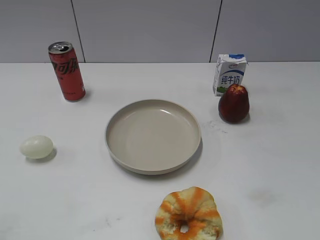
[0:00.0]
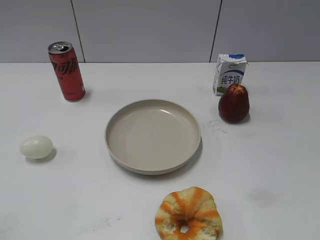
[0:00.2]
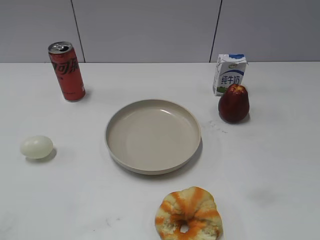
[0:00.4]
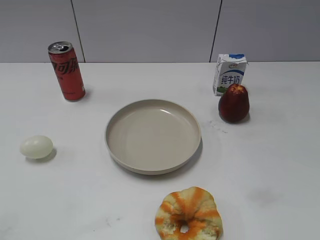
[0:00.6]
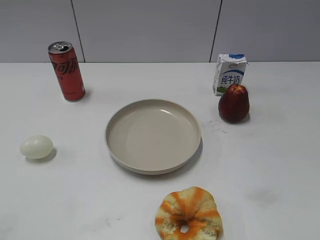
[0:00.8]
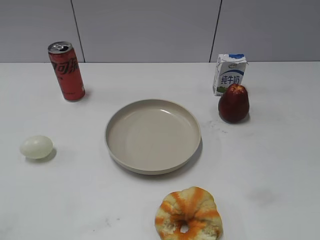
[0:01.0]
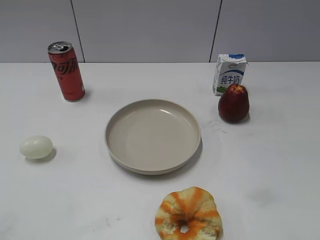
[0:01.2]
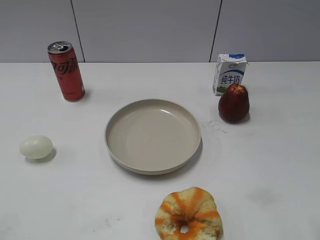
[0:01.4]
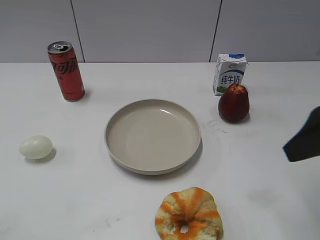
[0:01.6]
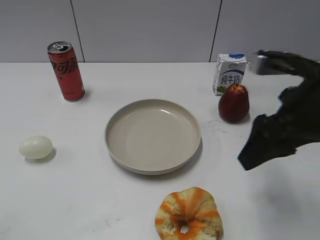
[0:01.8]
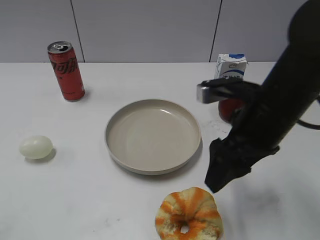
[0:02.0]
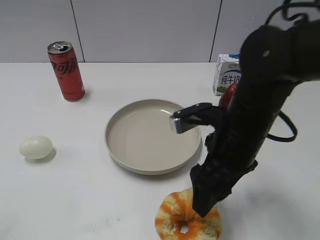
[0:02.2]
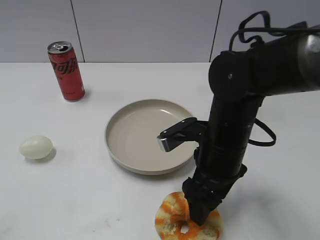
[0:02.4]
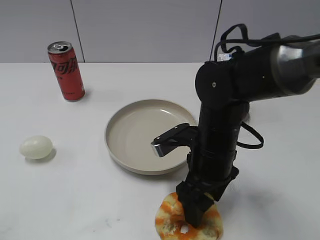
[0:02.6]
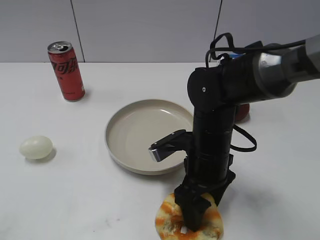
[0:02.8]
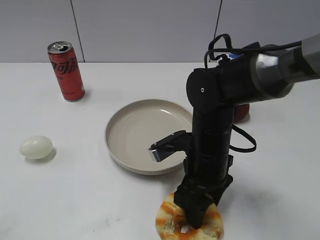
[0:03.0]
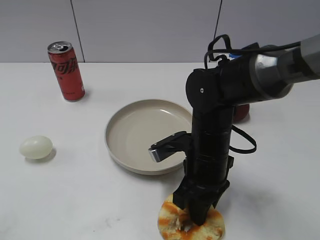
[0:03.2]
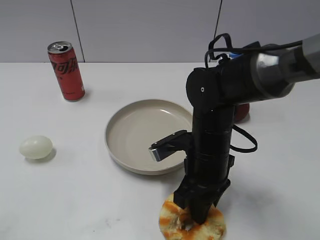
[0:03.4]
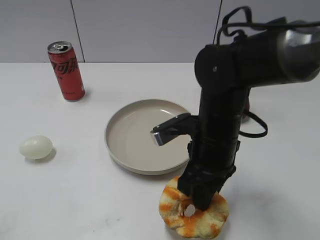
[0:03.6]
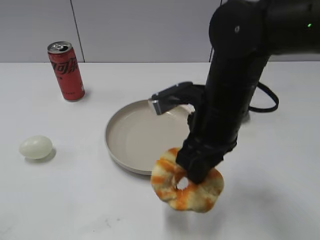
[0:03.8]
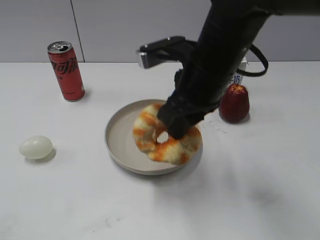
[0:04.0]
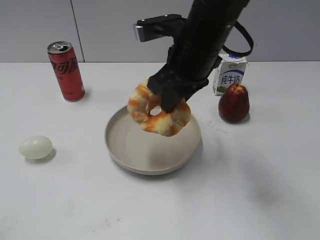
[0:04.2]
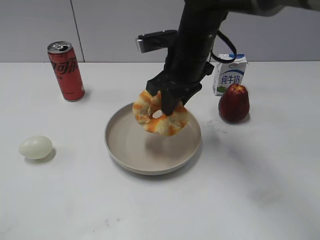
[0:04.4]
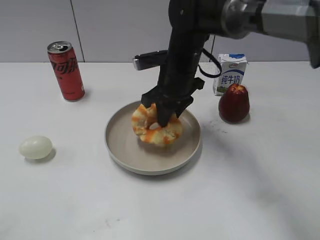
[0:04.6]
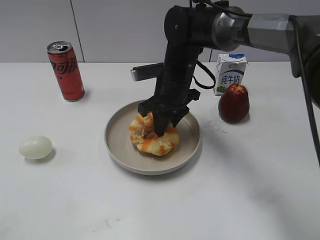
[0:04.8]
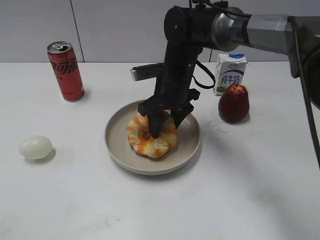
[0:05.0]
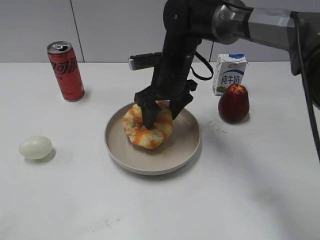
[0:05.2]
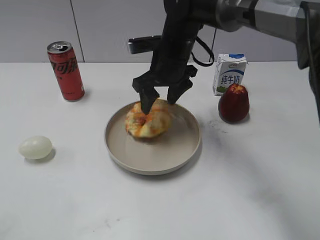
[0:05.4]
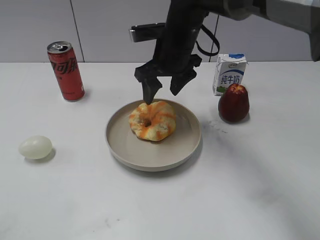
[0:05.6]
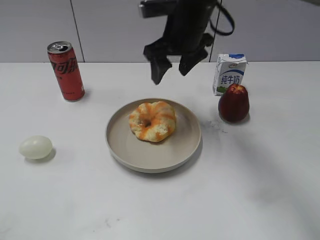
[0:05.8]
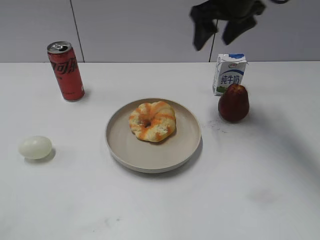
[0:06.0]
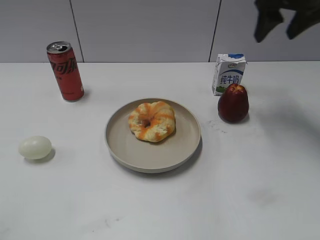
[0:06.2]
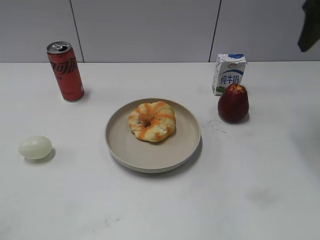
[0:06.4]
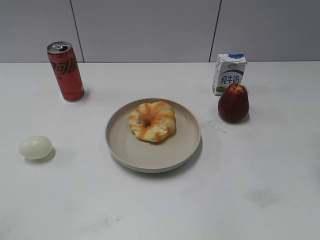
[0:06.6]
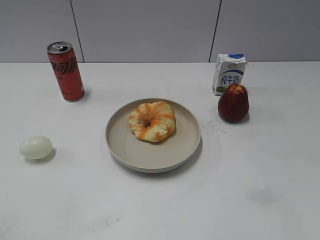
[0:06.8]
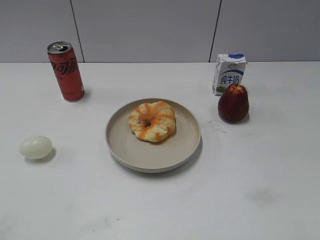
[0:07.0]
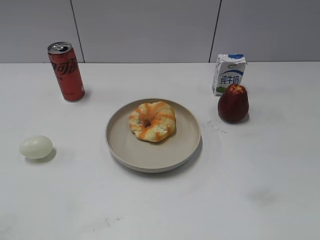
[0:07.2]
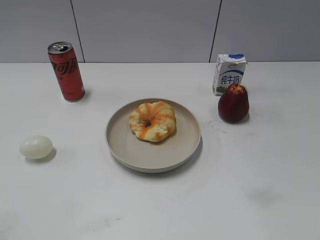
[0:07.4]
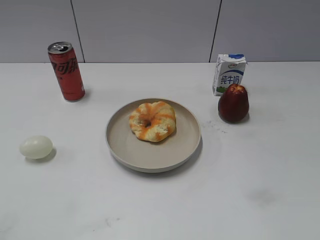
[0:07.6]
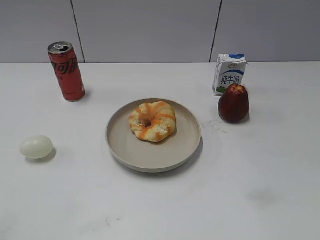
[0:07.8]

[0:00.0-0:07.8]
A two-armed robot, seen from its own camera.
Step, 0:00.0 to 0:03.2: Grasp the round bread with right gripper.
Step, 0:03.4 to 0:05.6: Place the round bread on the plate with right gripper.
0:01.6 to 0:03.2: The right gripper heads to the left and downward, covering approximately 25 cm, and closes up.
0:03.2 to 0:04.6: The right gripper moves forward, about 15 cm.
0:04.6 to 0:06.2: The right gripper travels to the right and upward by roughly 25 cm, and opens up.
0:06.2 to 0:07.8: The right gripper travels backward by about 40 cm.
